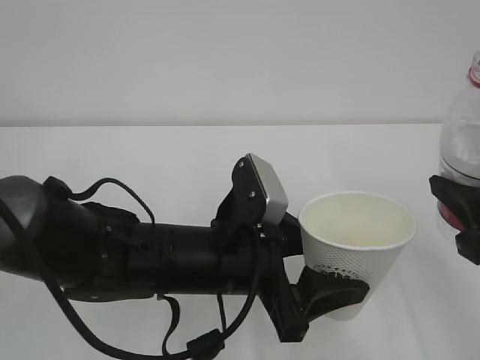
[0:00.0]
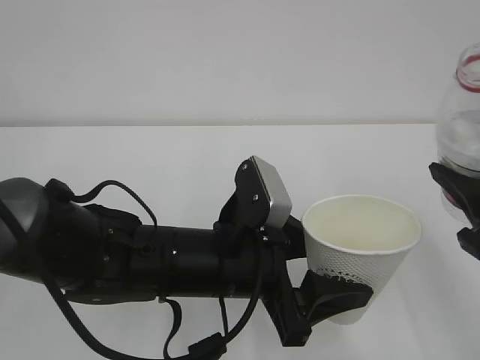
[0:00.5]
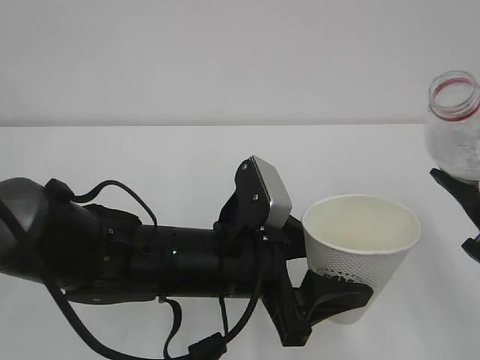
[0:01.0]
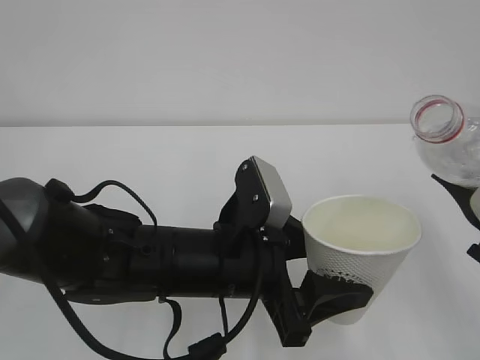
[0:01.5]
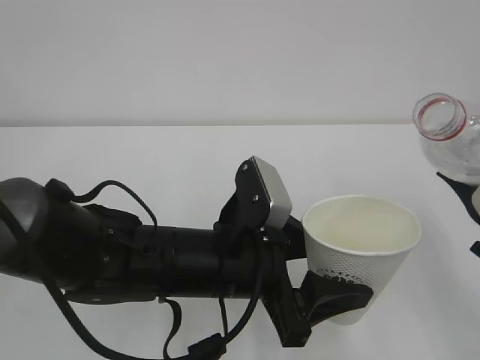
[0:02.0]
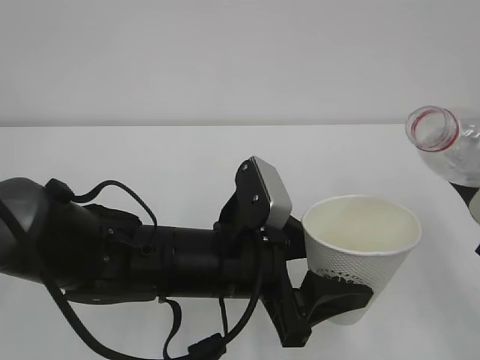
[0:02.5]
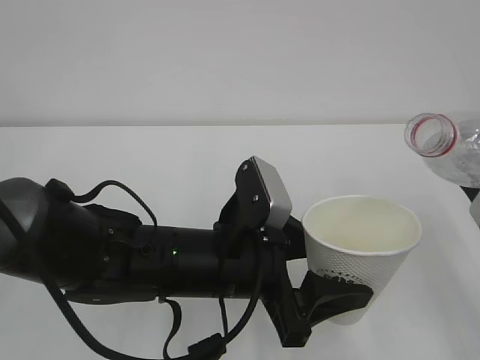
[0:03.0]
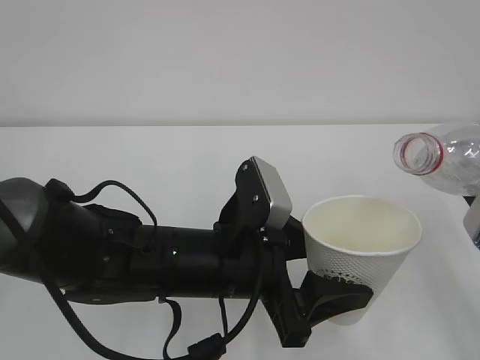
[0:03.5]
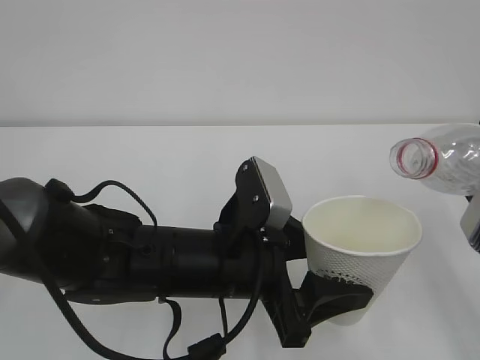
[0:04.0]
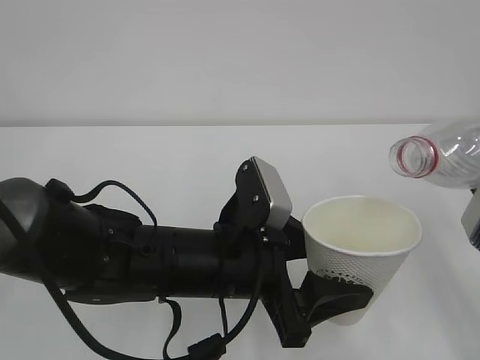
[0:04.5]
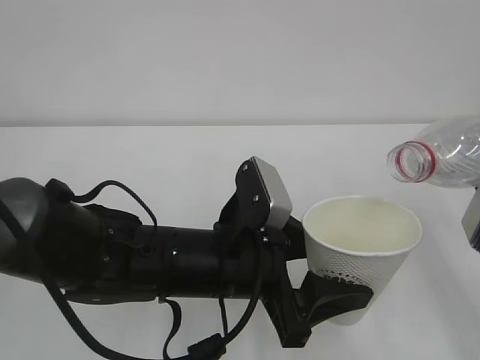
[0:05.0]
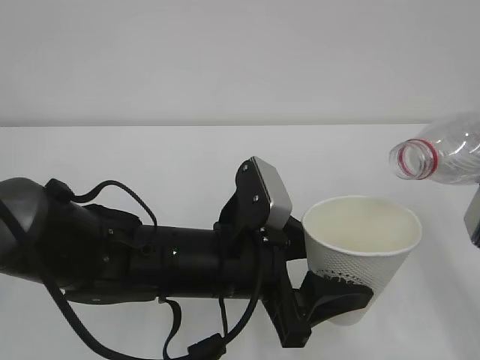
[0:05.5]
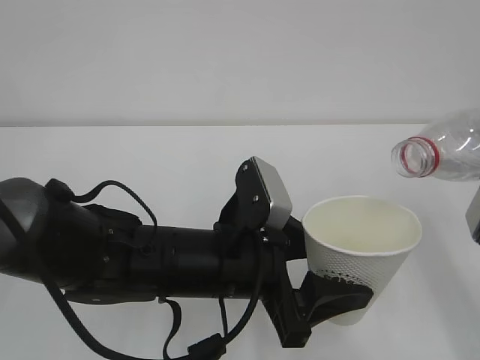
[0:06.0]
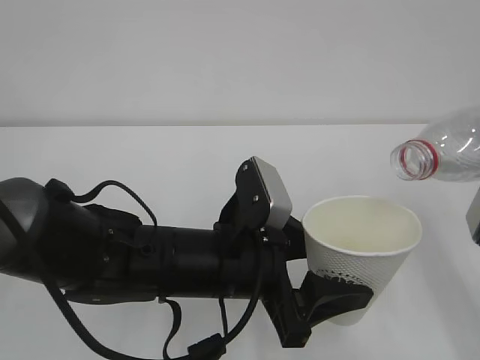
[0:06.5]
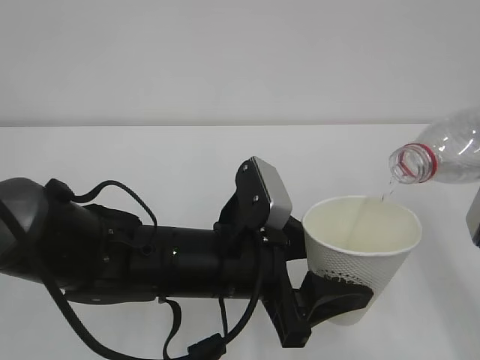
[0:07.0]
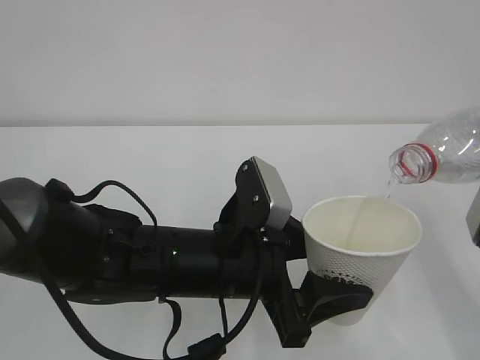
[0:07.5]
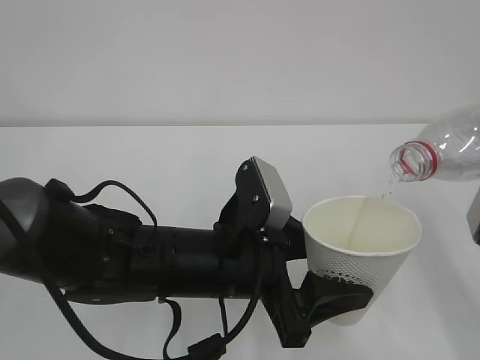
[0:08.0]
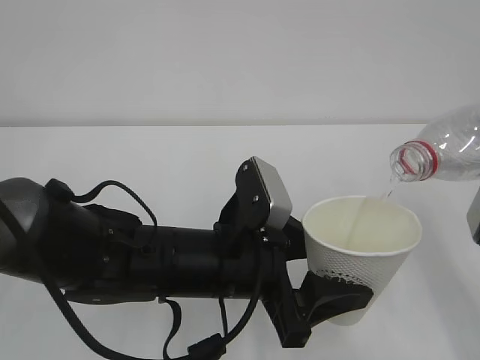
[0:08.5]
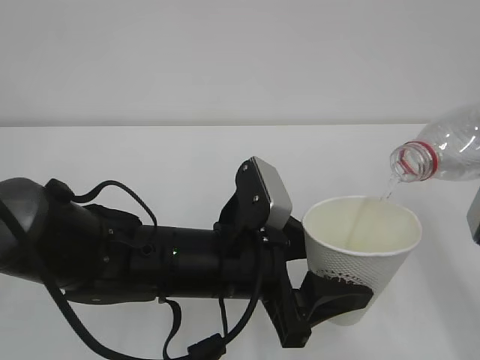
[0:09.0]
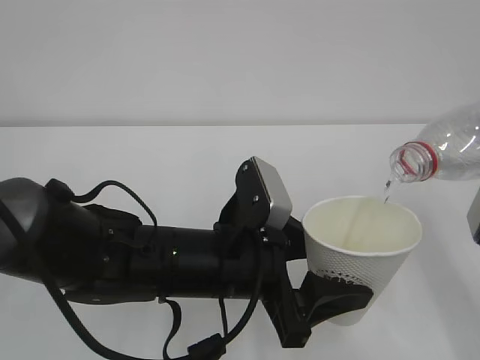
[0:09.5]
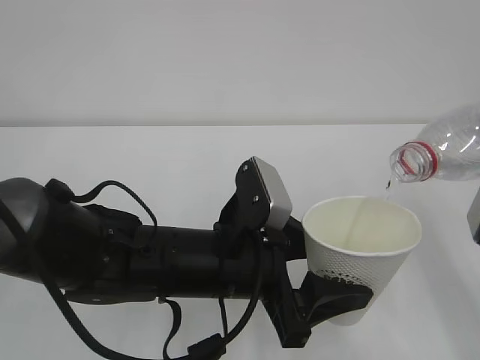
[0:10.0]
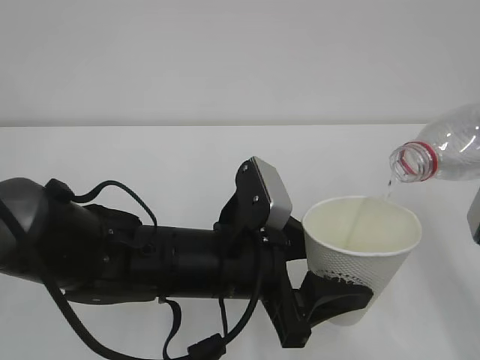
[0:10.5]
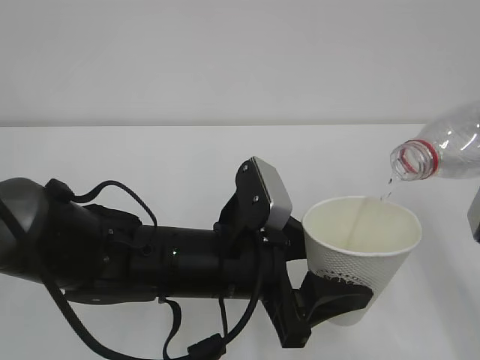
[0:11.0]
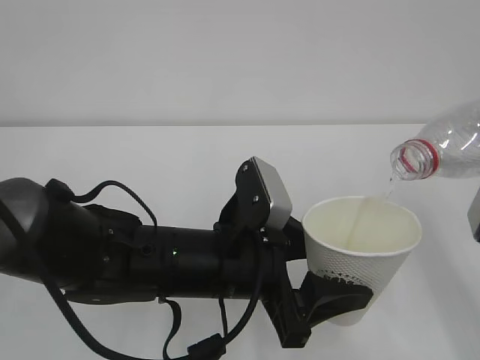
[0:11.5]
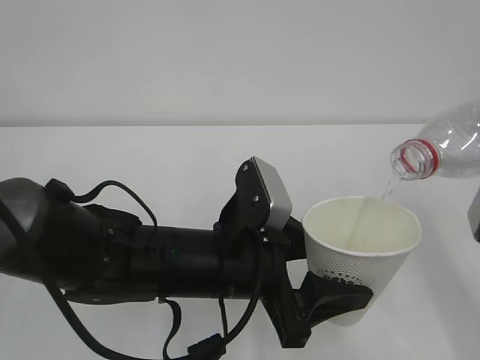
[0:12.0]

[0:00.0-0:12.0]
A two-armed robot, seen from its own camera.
0:02.0 to 0:04.0: There are only small adjustments of the grippers.
0:04.0 to 0:06.0: The grippers stay close to where they were, moving slightly.
0:06.0 to 0:08.0: Both grippers stay about where they are.
0:08.0 to 0:12.0: Both grippers stay put.

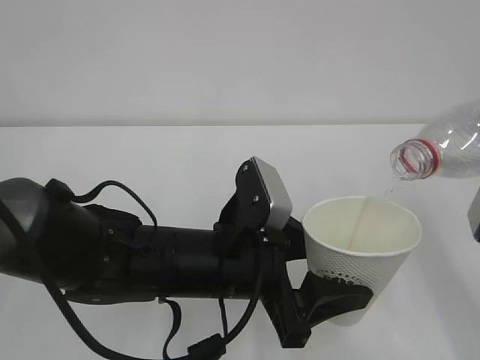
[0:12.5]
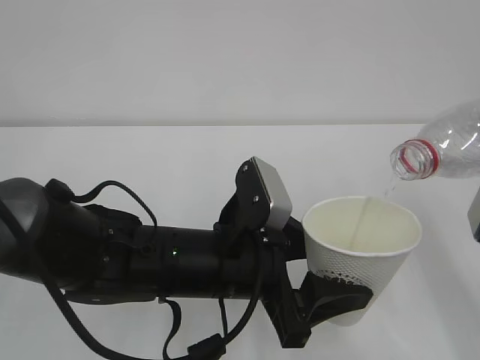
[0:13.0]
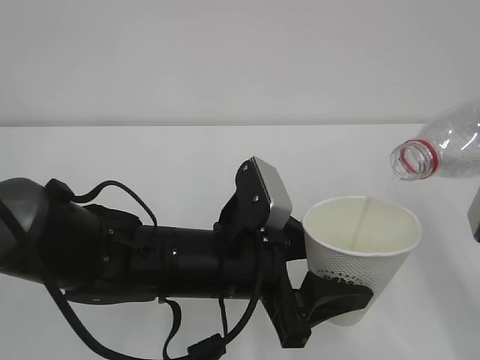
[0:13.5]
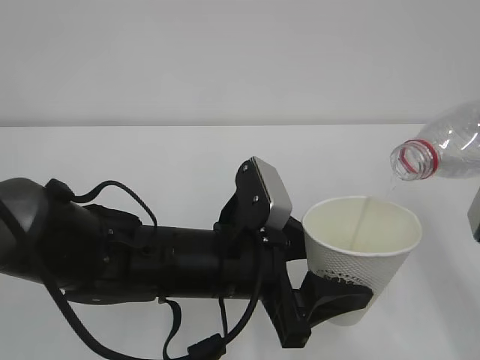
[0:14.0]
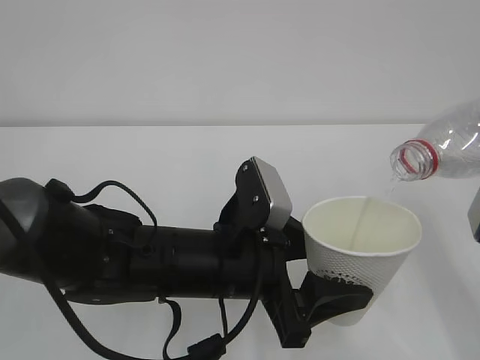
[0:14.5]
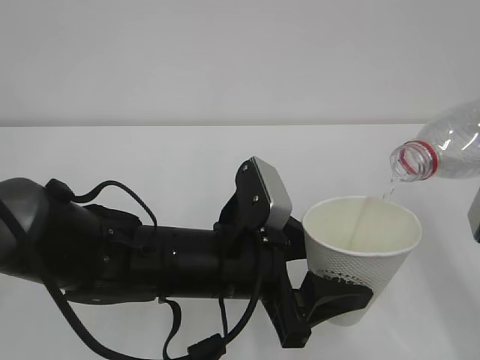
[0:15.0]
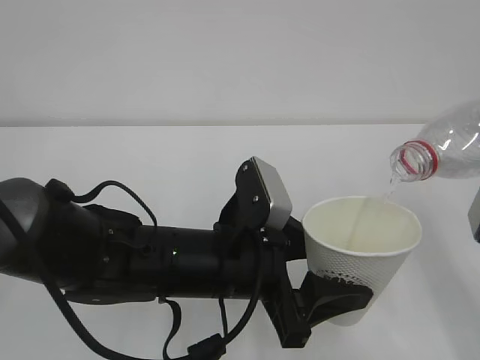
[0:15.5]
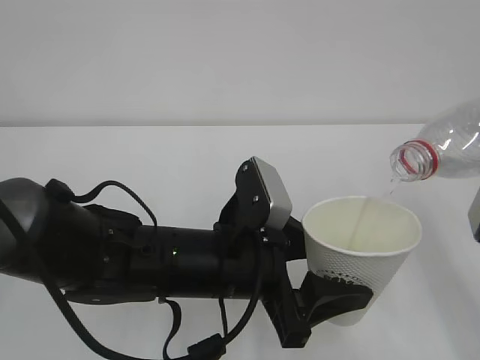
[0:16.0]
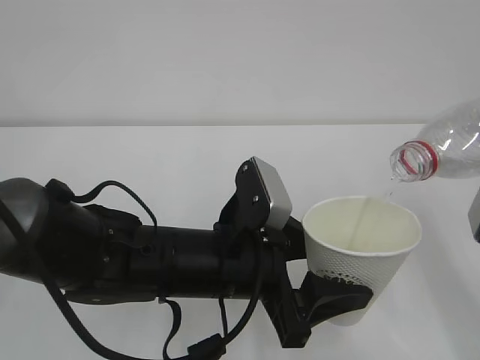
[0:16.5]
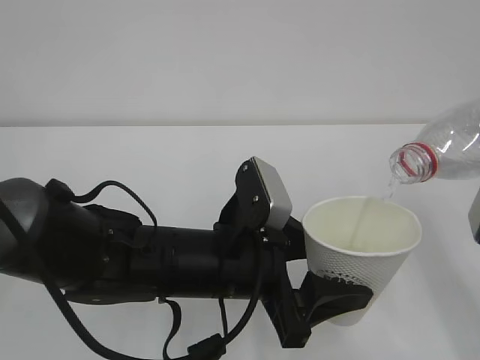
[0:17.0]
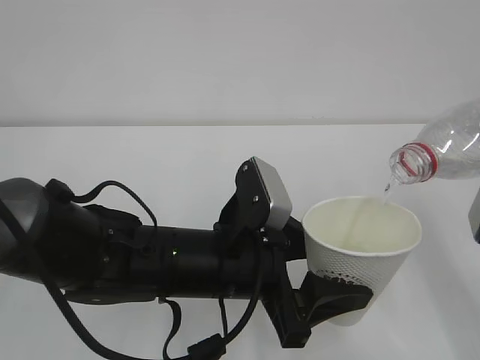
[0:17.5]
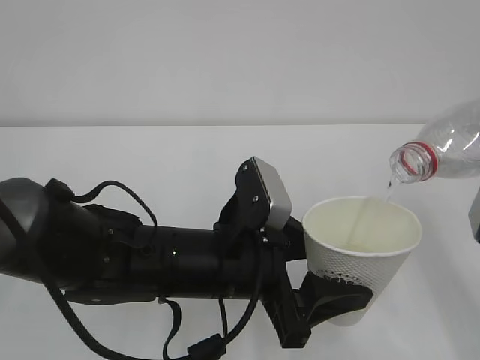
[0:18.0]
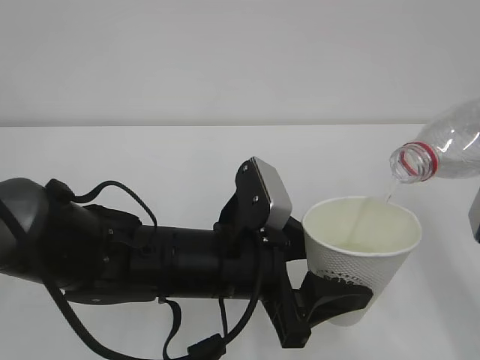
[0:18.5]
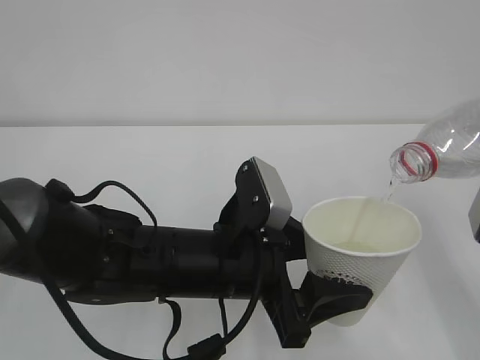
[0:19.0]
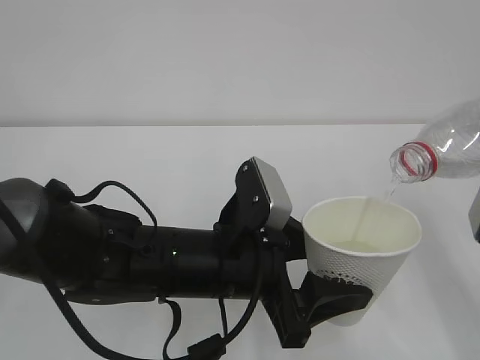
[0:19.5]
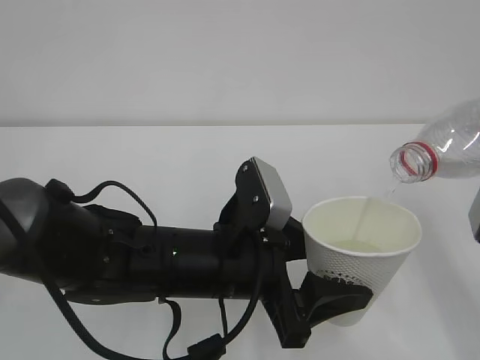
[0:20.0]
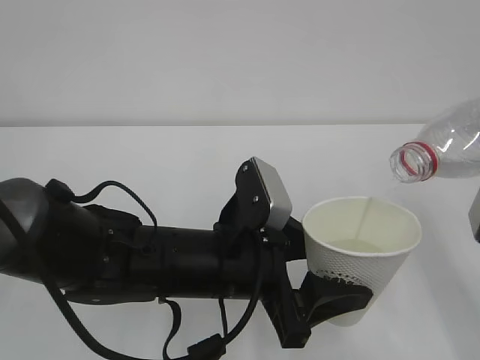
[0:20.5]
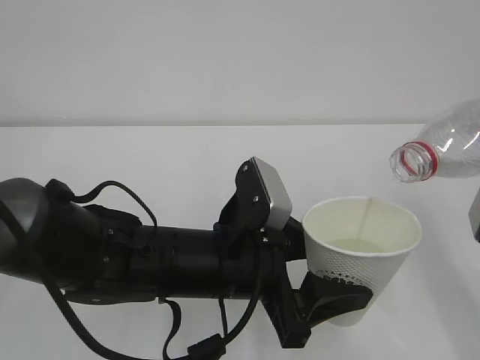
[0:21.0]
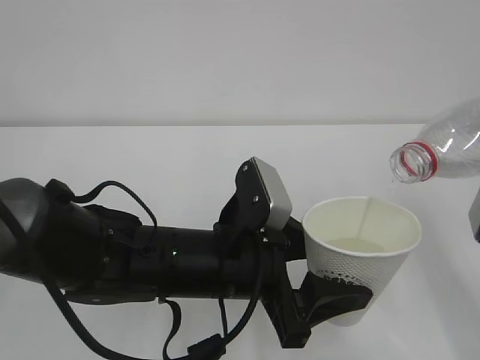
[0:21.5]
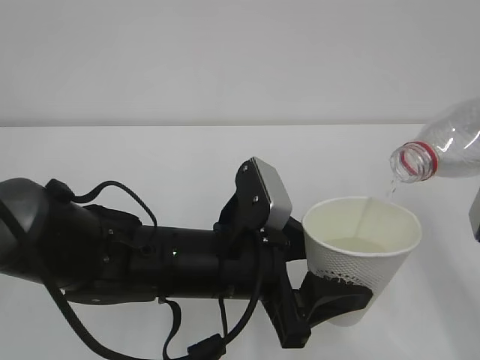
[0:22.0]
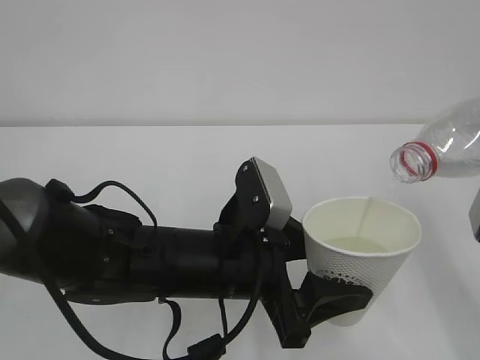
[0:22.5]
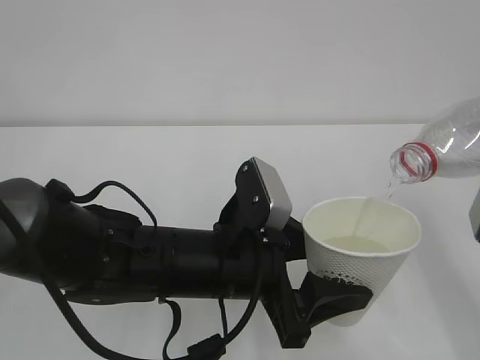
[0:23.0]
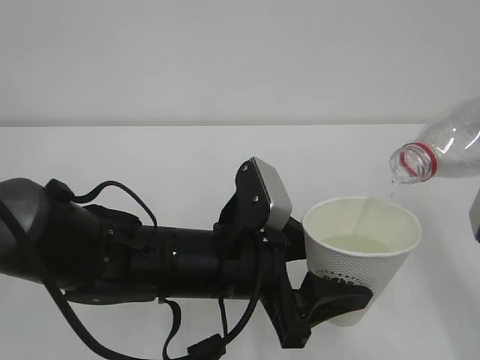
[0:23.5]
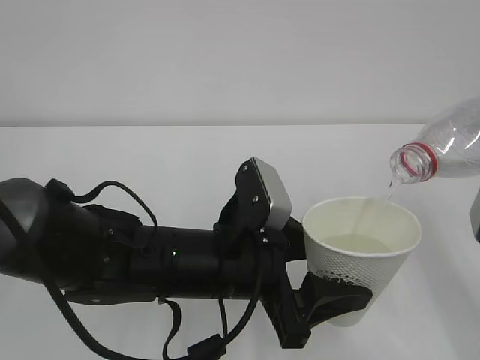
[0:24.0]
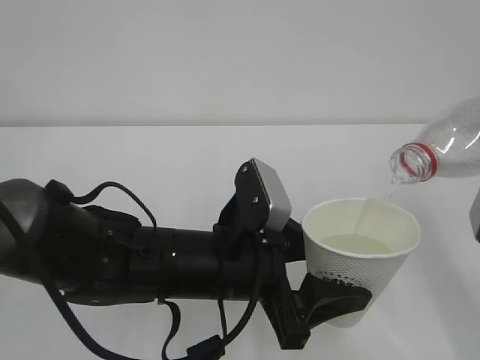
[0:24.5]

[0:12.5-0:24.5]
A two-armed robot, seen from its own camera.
0:12.5 to 0:24.5: Both grippers stay about where they are.

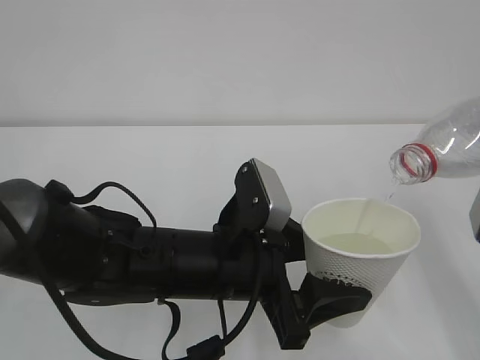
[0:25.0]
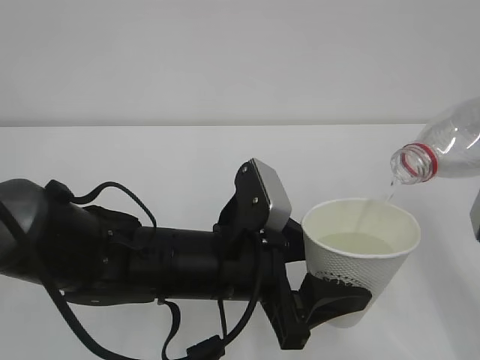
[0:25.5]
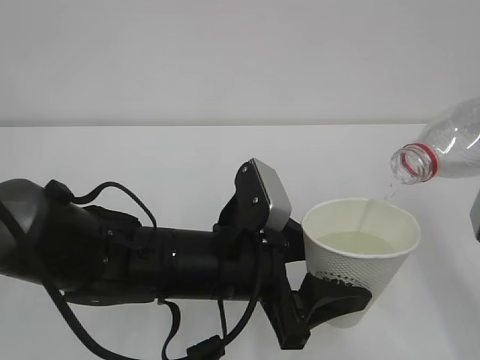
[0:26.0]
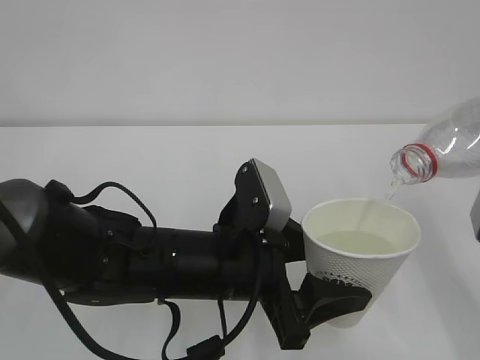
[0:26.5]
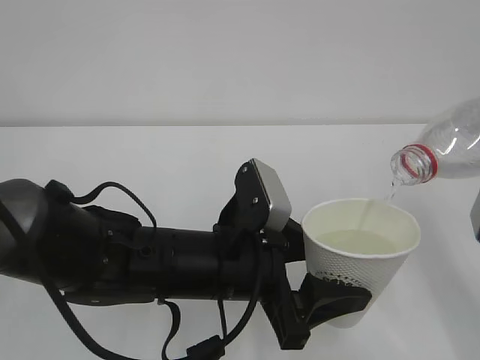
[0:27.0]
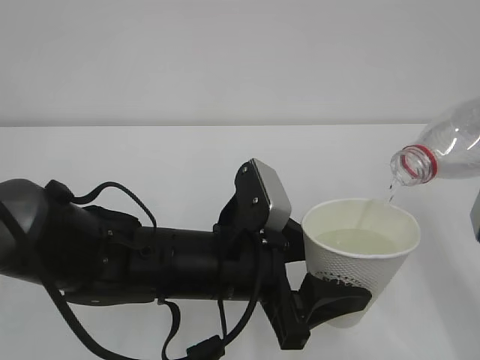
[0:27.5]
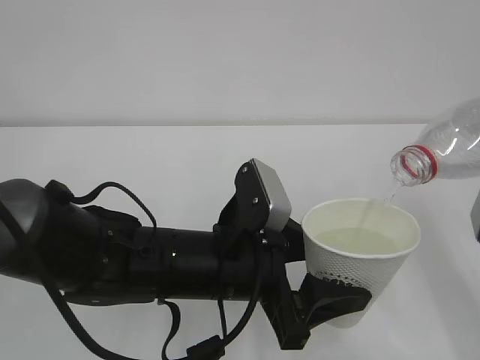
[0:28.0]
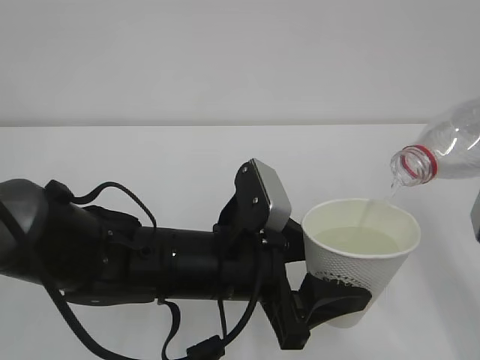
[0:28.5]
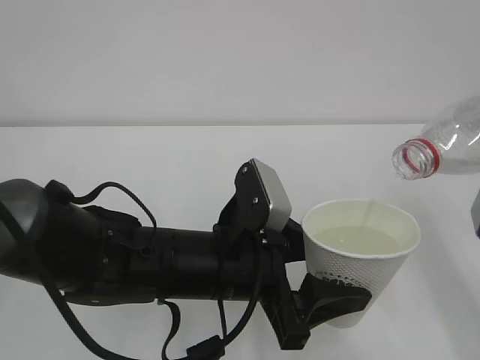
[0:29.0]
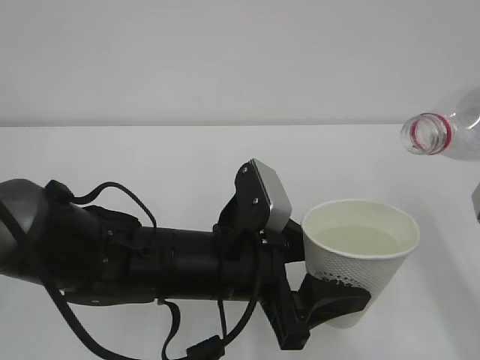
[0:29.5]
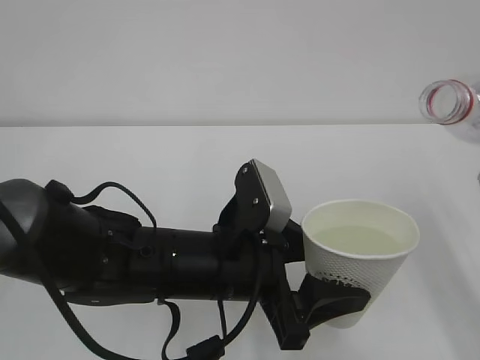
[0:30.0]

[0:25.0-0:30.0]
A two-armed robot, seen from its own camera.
0:25.0 to 0:27.5: Both grippers stay about where they are.
